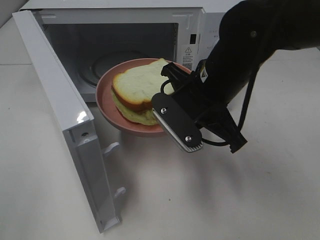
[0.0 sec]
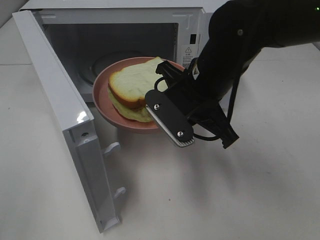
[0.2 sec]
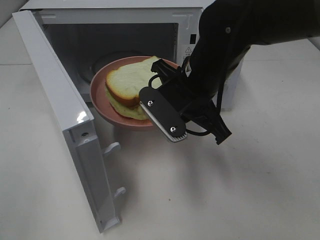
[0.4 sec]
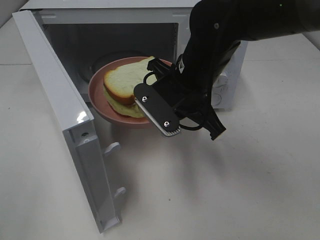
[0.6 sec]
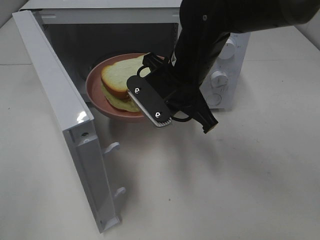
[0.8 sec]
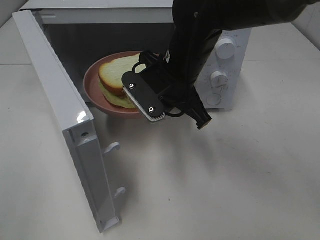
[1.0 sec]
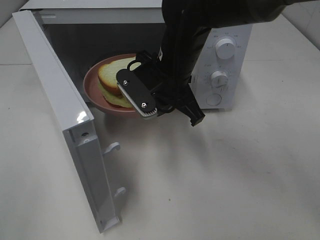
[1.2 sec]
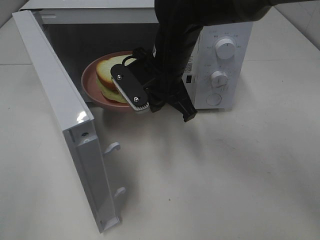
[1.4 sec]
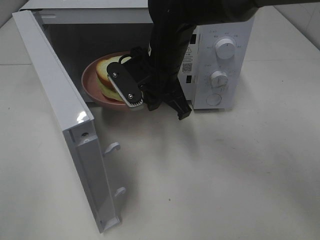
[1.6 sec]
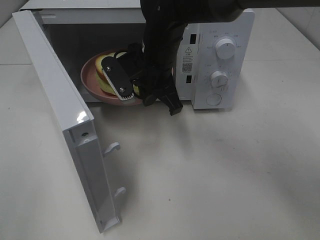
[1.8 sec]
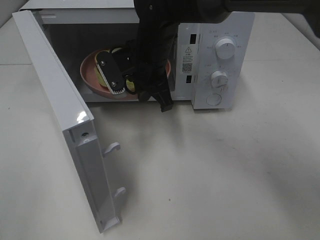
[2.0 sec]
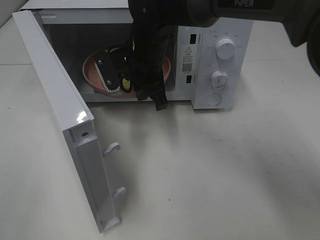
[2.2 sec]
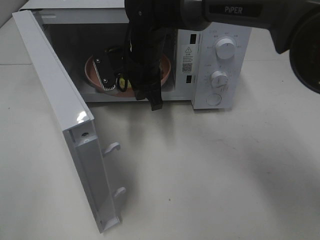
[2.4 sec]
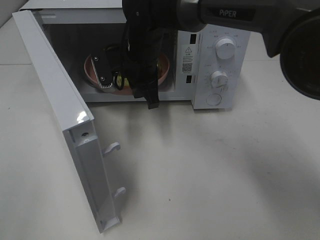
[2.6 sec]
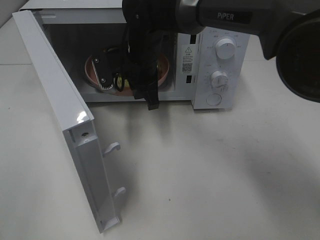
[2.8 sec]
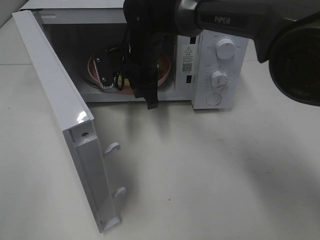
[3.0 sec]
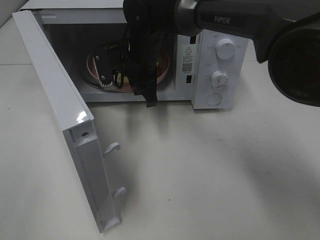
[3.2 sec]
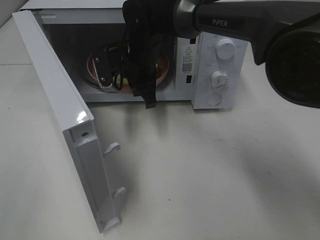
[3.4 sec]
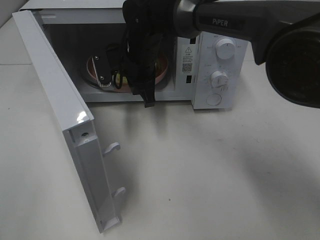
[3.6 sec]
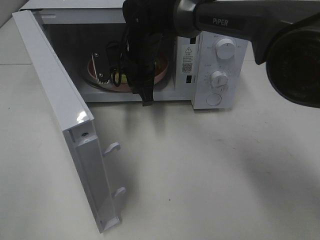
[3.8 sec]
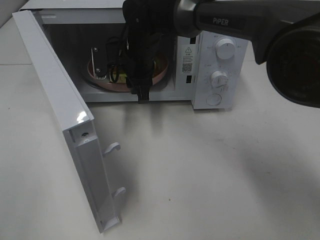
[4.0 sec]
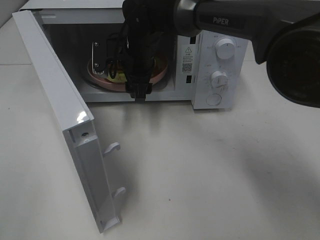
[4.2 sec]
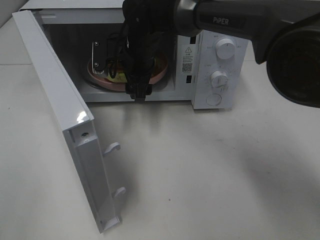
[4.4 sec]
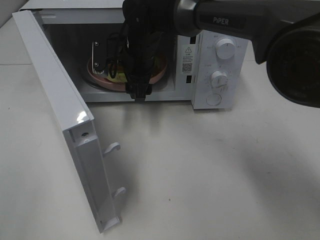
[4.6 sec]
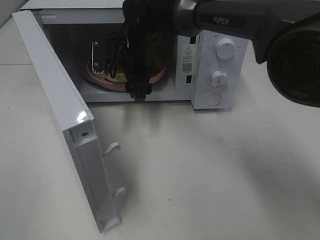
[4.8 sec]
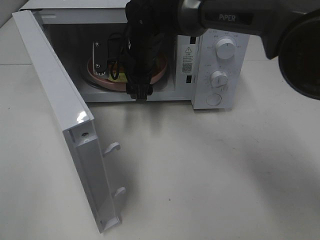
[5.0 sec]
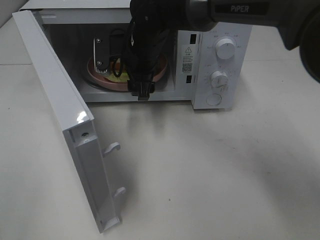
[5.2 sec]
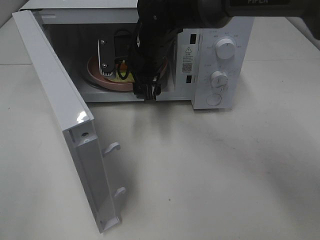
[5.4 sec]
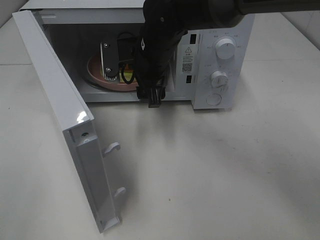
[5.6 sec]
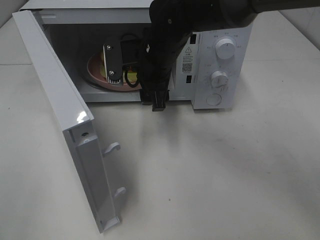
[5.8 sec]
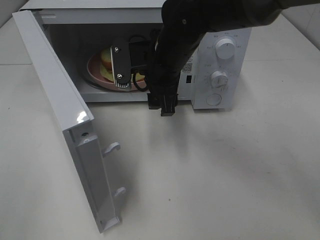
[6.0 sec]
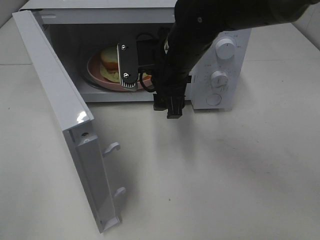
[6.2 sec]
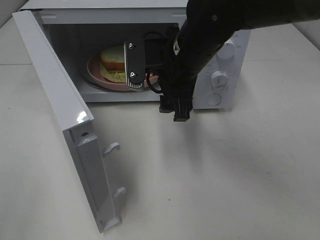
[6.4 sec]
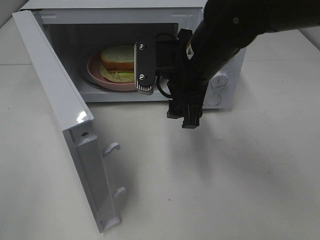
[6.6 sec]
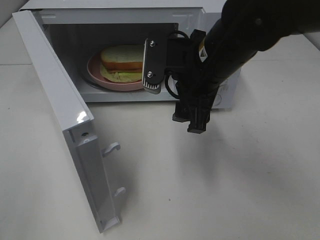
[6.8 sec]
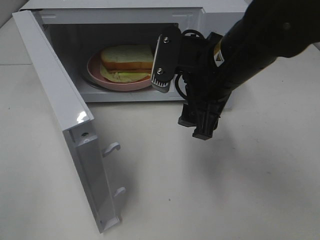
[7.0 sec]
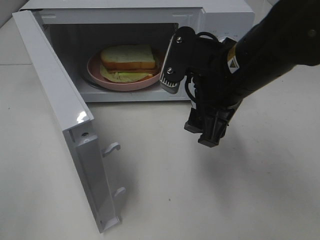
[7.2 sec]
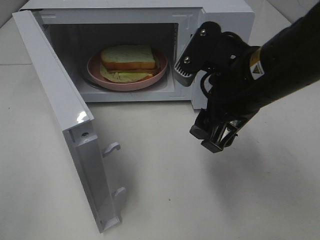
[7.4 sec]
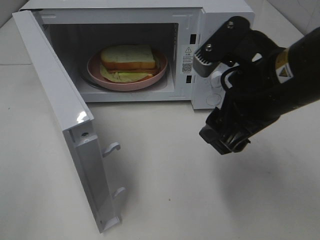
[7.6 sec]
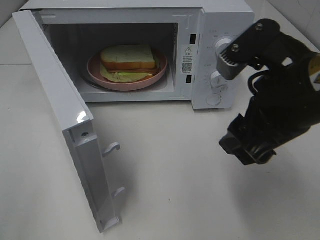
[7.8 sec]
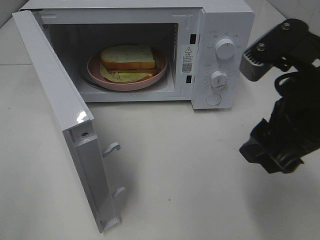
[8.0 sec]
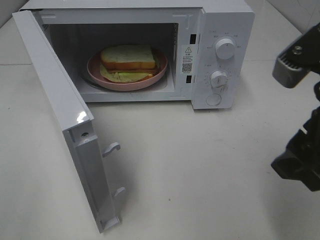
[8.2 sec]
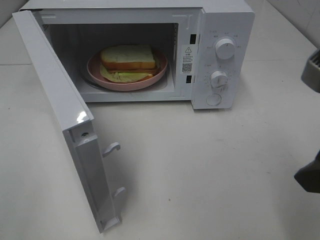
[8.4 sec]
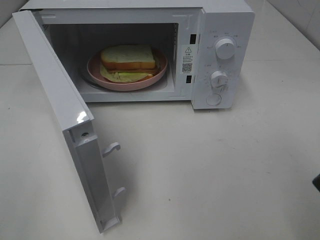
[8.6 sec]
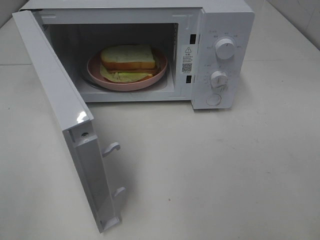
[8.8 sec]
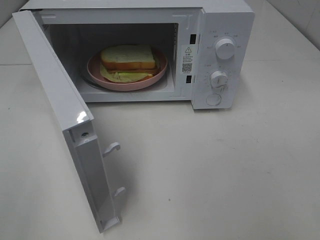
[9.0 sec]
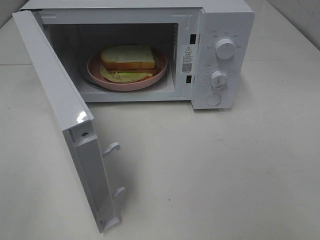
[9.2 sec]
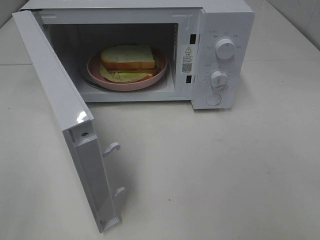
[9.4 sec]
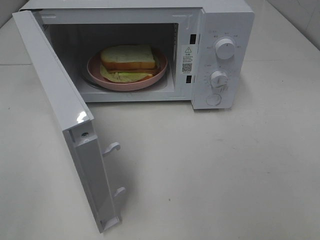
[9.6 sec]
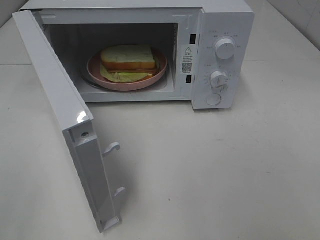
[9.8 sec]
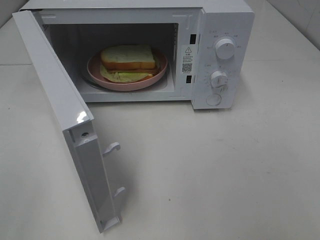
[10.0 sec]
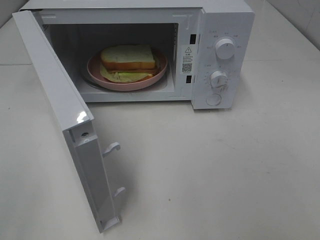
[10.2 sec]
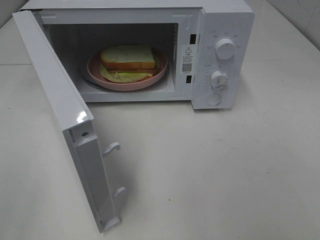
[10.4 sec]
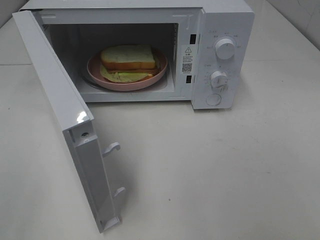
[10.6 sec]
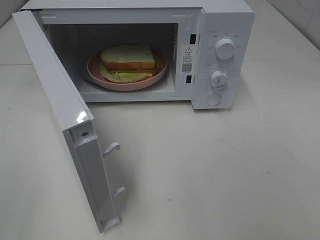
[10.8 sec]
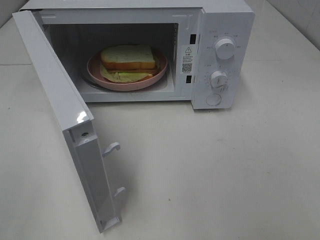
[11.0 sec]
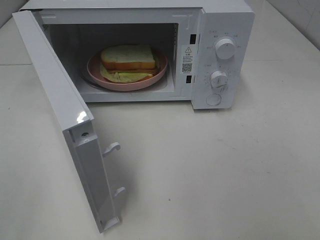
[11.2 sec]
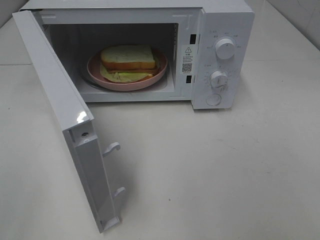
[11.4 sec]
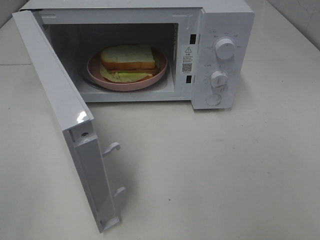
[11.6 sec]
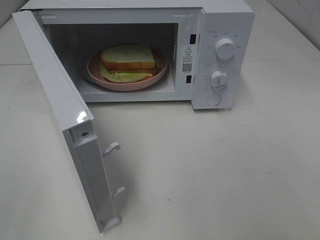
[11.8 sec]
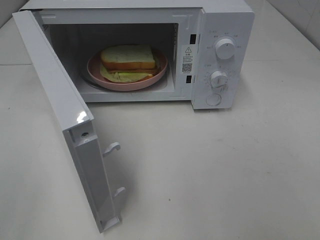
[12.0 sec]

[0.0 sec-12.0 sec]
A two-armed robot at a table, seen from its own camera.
Task of the whole recording: Heat Sandwich.
Step, 0.0 sec to 5.8 sec: Right hand: place the plate in the microwave.
0.0 sec to 1.6 sec: The right gripper is displaced forward and to the left by approximately 10 cm.
1.6 sec to 3.0 sec: The right gripper is displaced forward by some 5 cm.
3.0 sec to 4.4 sec: The right gripper opens up.
4.4 sec to 6.0 sec: The right gripper shifts approximately 10 cm backward and to the right.
6.0 sec to 7.6 sec: The right gripper heads backward and to the right, covering about 20 cm.
7.6 sec to 9.0 sec: The right gripper goes approximately 20 cm backward, to the right and upward.
10.4 sec to 12.0 sec: The two grippers keep their place.

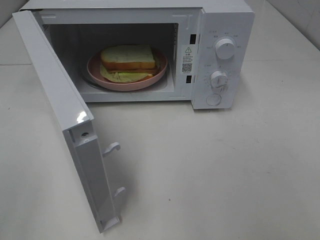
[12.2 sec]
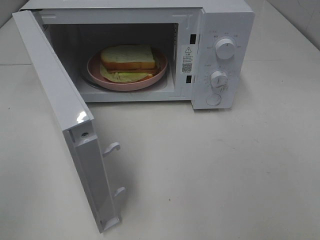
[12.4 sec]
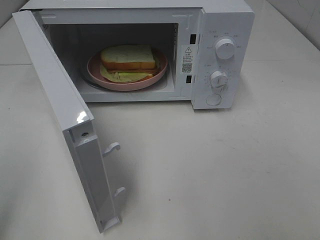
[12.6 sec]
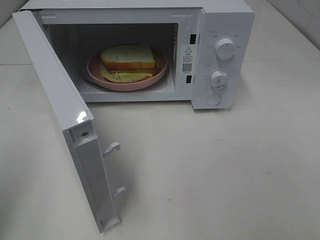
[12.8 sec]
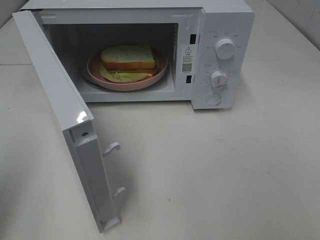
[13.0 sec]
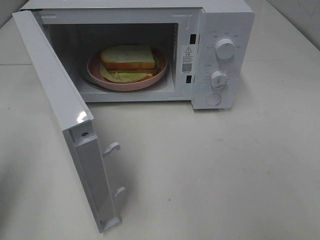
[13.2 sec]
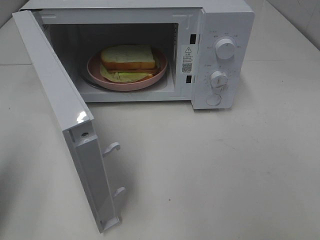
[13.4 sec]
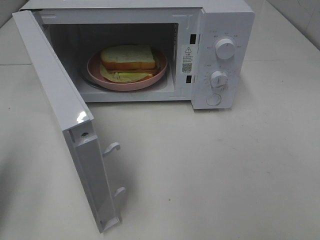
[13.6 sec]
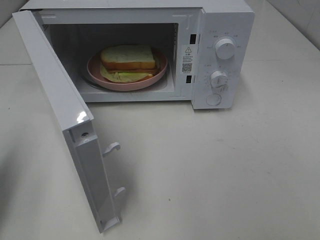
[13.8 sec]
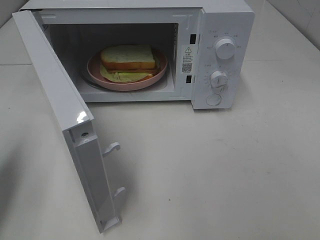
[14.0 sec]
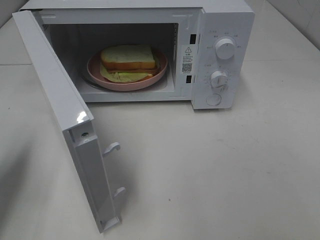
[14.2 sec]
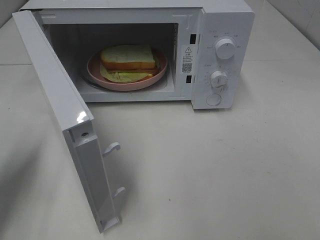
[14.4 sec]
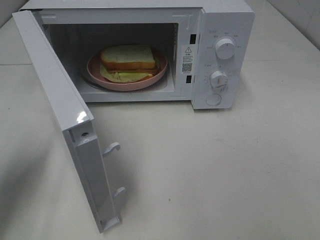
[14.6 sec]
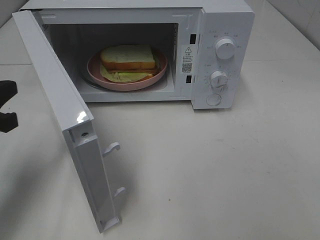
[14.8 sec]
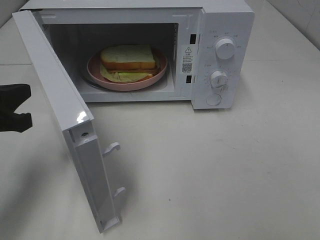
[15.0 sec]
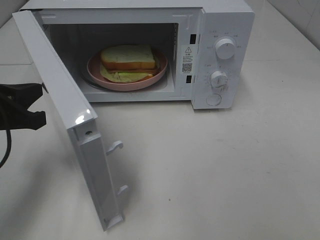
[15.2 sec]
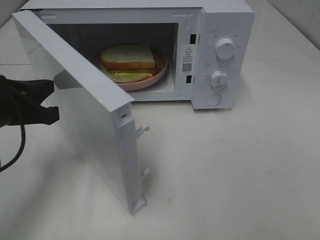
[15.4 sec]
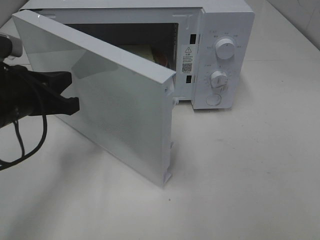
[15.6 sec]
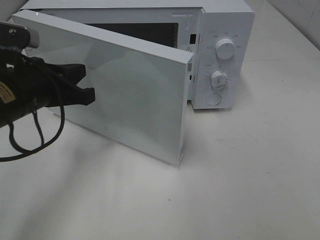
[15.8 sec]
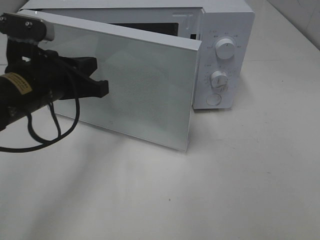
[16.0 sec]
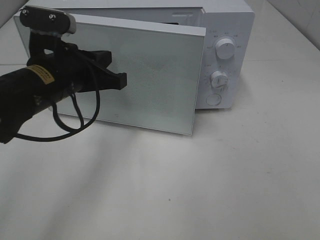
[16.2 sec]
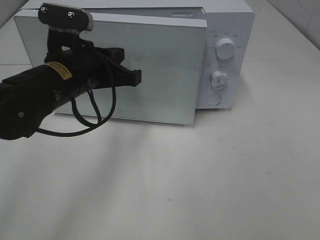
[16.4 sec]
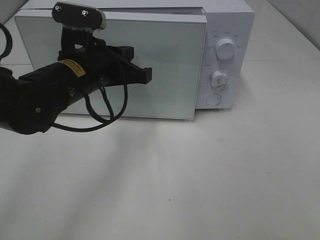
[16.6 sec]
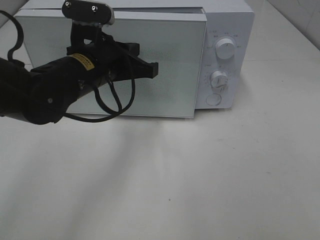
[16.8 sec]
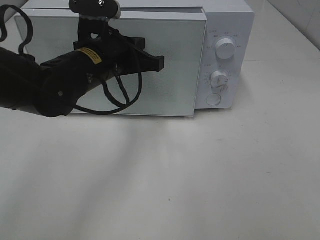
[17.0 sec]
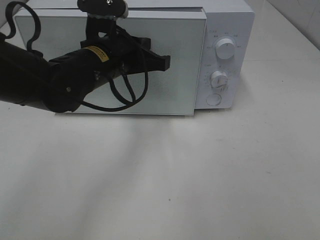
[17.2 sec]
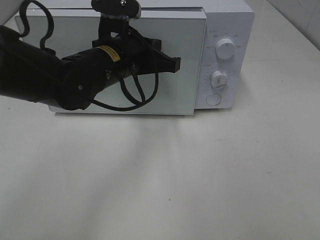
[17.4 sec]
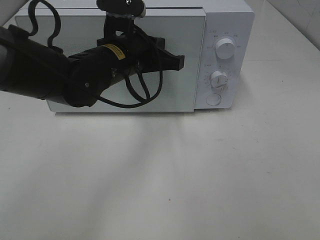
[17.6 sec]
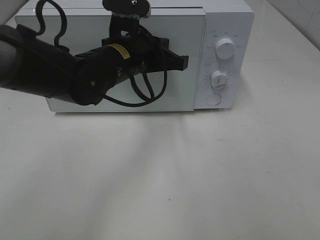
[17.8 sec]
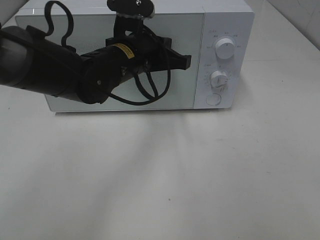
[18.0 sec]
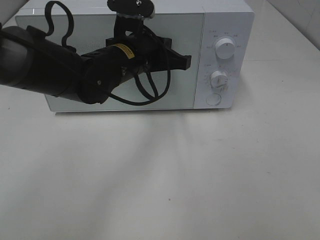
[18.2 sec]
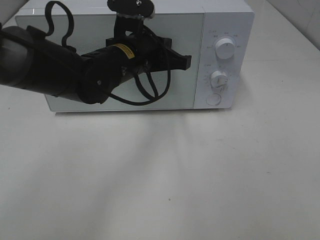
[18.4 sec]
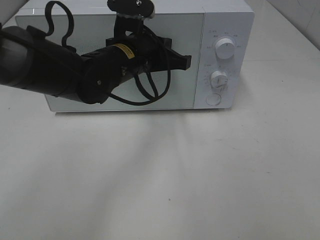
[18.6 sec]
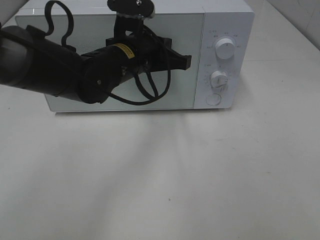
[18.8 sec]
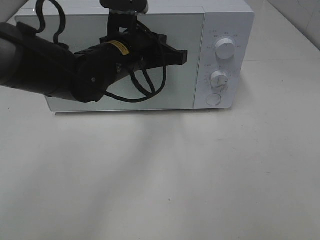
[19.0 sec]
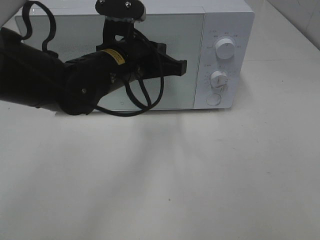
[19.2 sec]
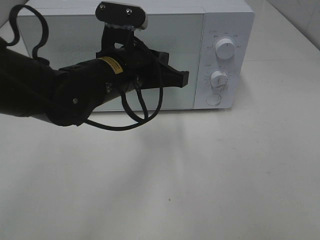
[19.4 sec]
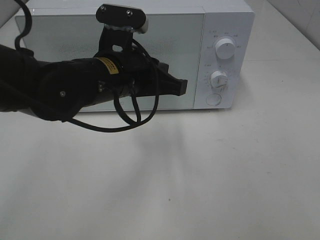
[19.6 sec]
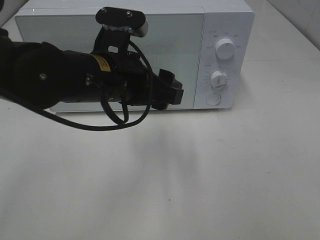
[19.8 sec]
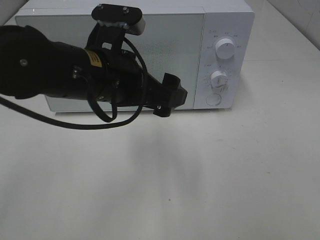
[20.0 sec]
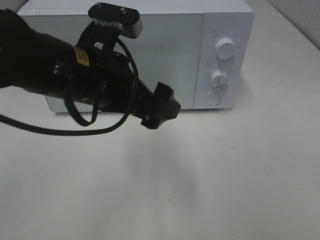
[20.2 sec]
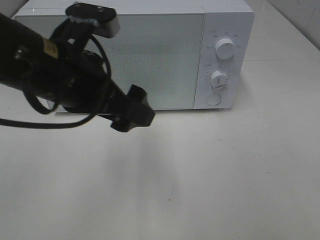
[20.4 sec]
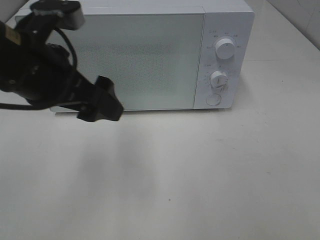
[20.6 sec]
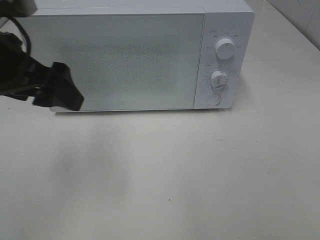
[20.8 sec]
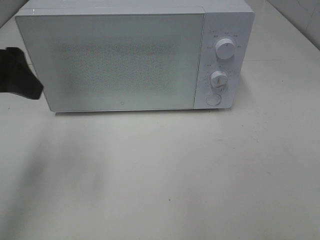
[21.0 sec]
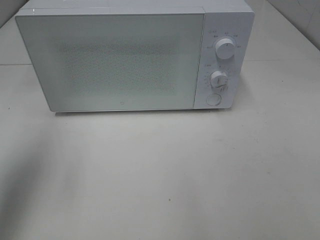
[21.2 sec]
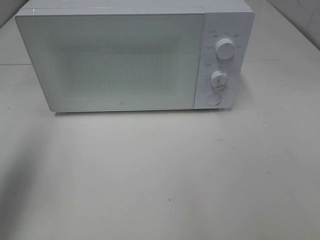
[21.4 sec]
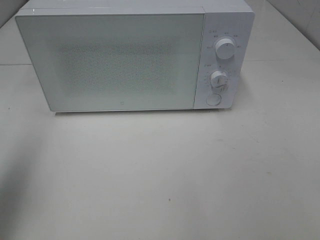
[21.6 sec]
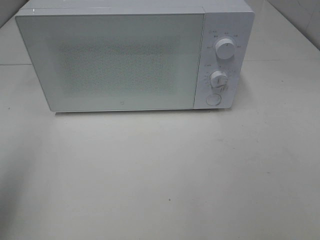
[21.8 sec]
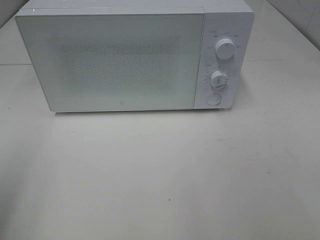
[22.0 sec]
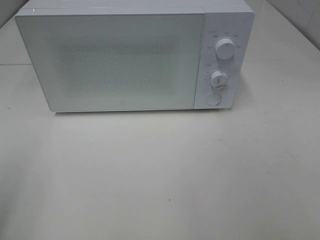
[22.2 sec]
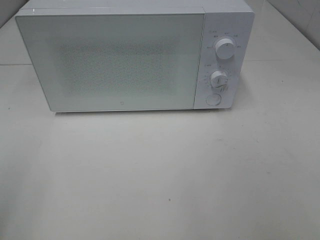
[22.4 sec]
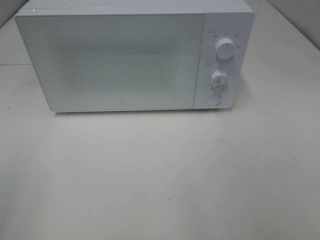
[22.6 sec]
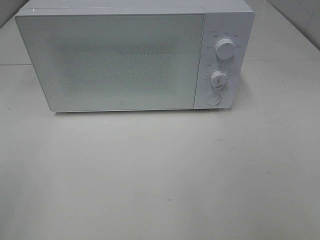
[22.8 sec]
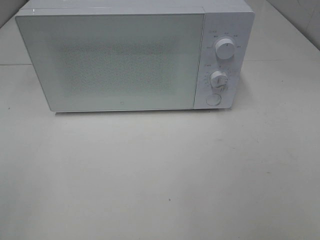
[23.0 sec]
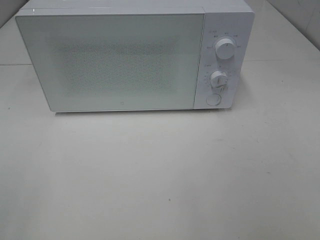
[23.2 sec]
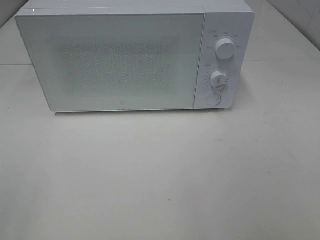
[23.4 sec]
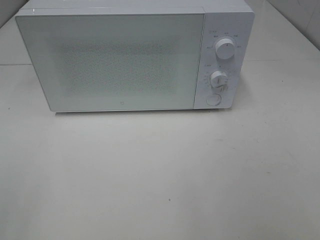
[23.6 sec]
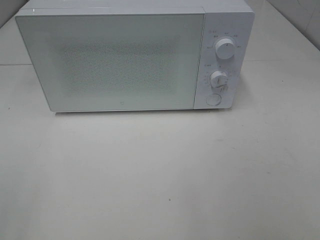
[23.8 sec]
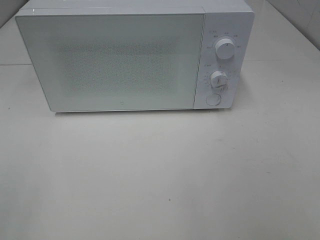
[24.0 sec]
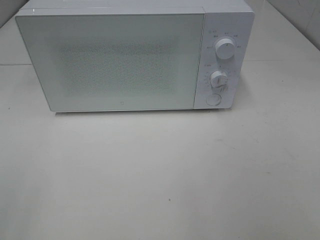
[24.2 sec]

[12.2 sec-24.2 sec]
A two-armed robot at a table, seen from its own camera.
Task of the whole recording: Heat Sandwich.
Step, 12.2 sec to 19.6 sec: Left hand: close the microwave door.
12.2 sec to 13.8 sec: The left gripper is displaced forward and downward by some 15 cm, and closes its fingers.
13.8 sec to 15.2 sec: The left gripper heads to the right and forward, covering roughly 10 cm.
15.2 sec to 16.6 sec: The left gripper moves to the right and forward, about 15 cm.
16.6 sec to 18.2 sec: The left gripper shifts roughly 5 cm to the right.
18.2 sec to 19.8 sec: The left gripper is displaced backward by some 10 cm, and opens up.
19.8 sec to 21.2 sec: The left gripper goes about 25 cm to the left and upward.
21.2 sec to 22.6 sec: The left gripper heads backward, covering about 15 cm.
